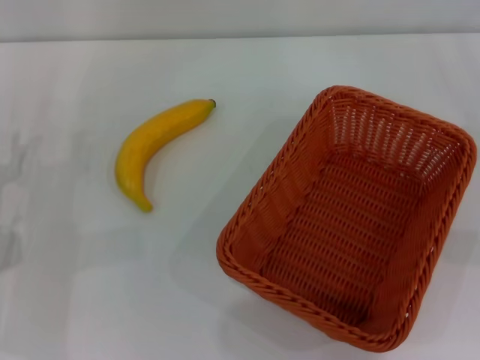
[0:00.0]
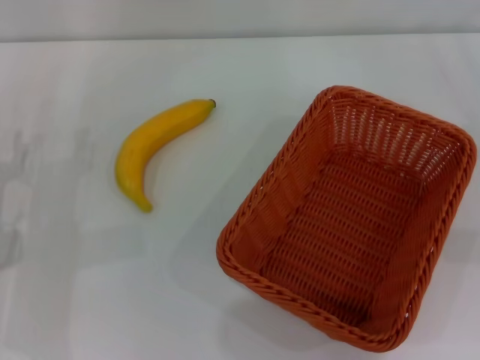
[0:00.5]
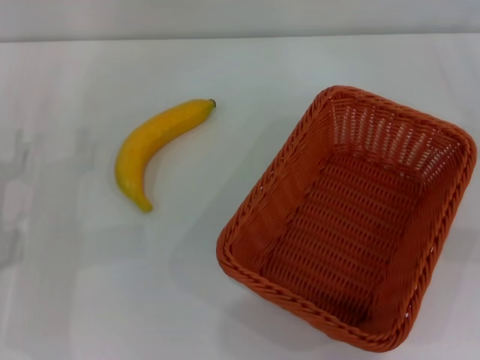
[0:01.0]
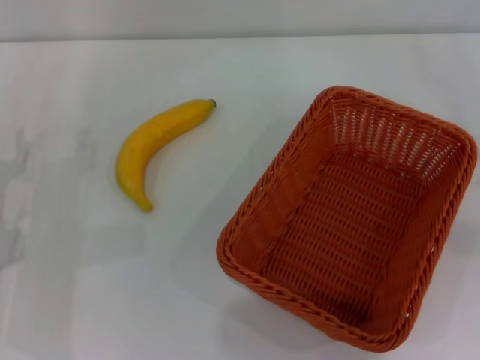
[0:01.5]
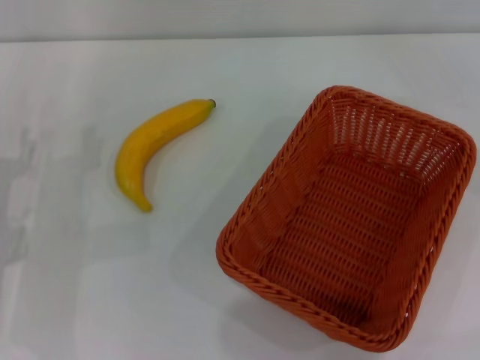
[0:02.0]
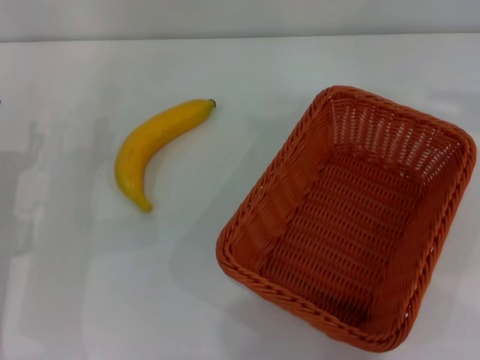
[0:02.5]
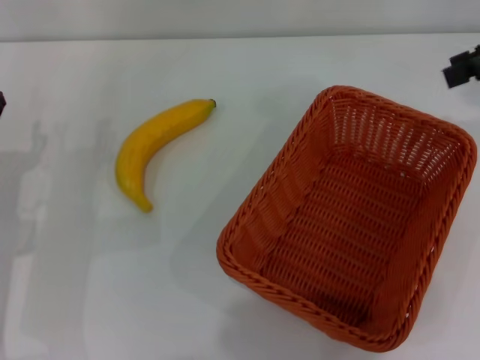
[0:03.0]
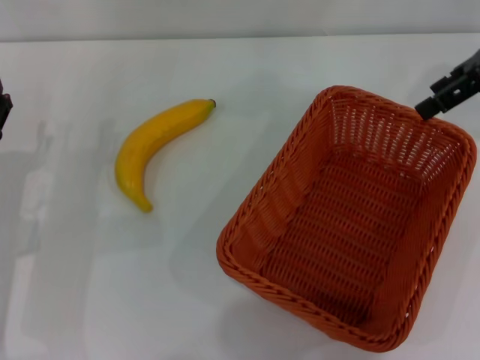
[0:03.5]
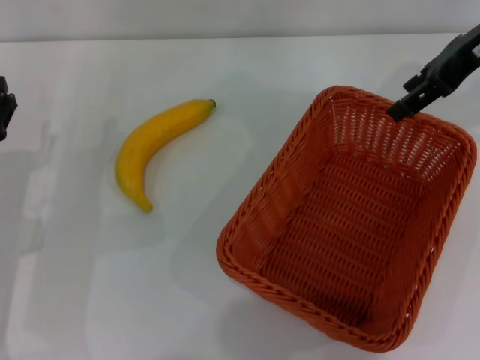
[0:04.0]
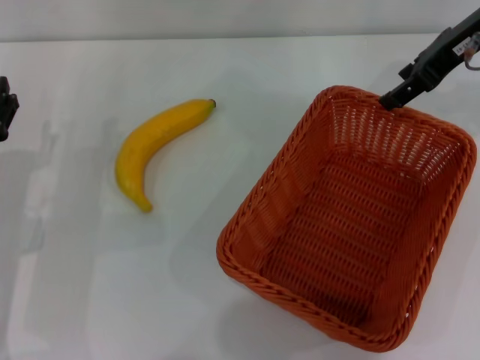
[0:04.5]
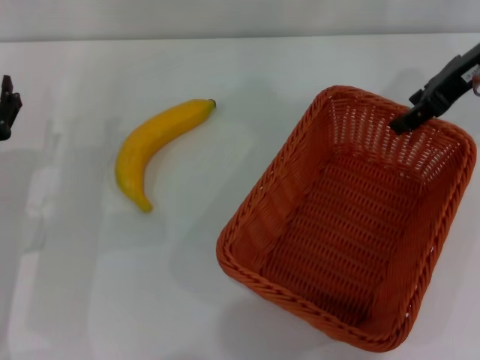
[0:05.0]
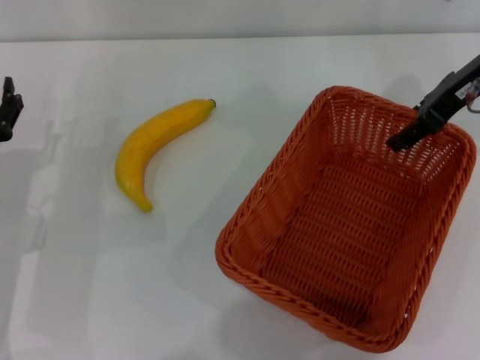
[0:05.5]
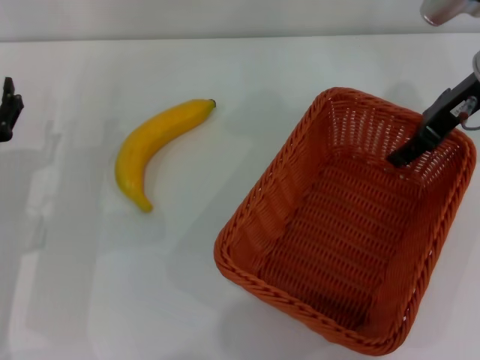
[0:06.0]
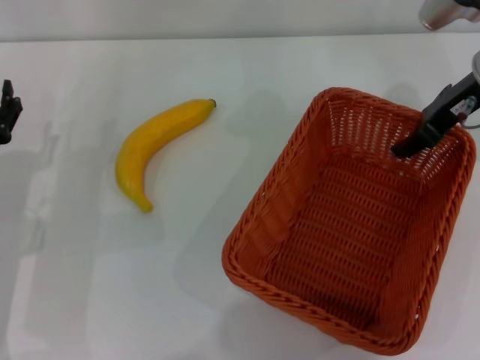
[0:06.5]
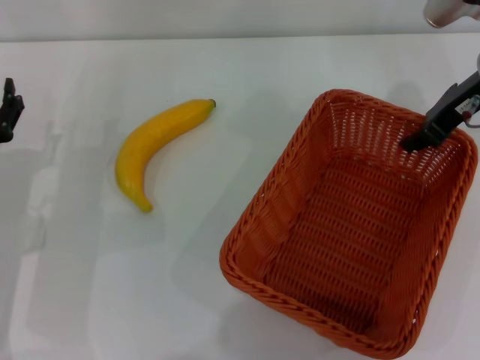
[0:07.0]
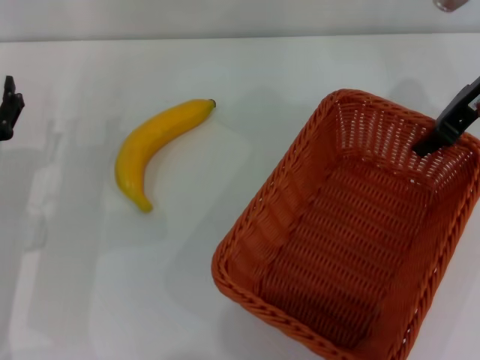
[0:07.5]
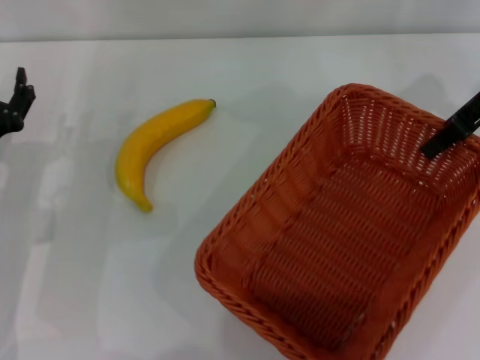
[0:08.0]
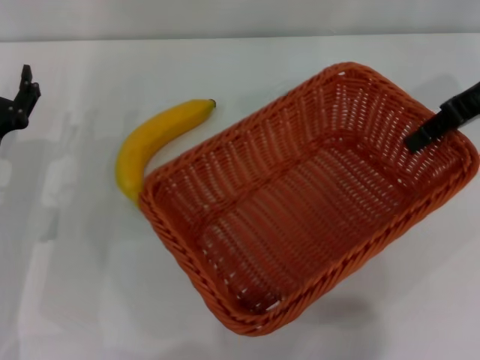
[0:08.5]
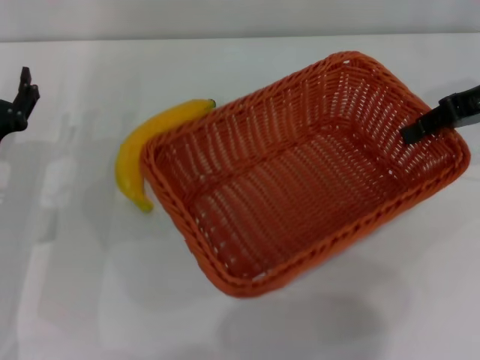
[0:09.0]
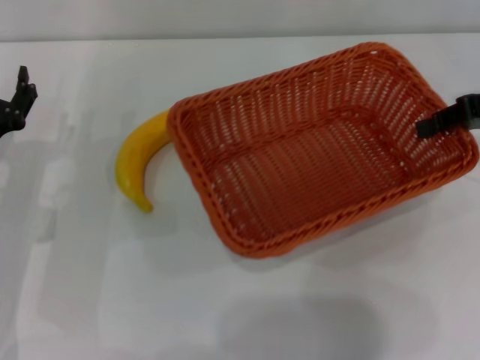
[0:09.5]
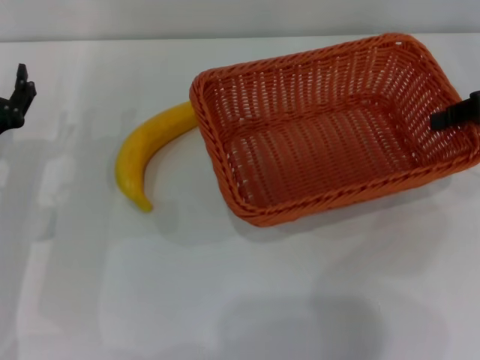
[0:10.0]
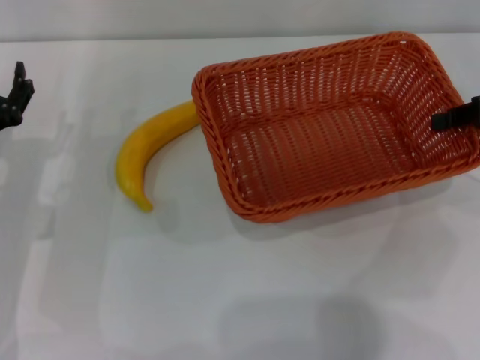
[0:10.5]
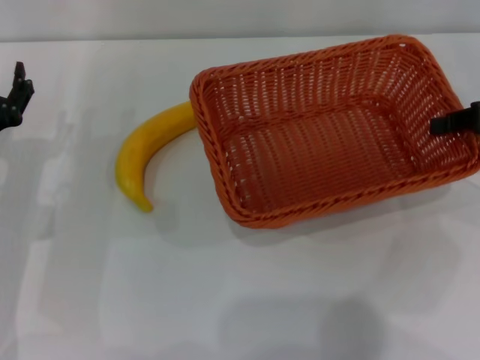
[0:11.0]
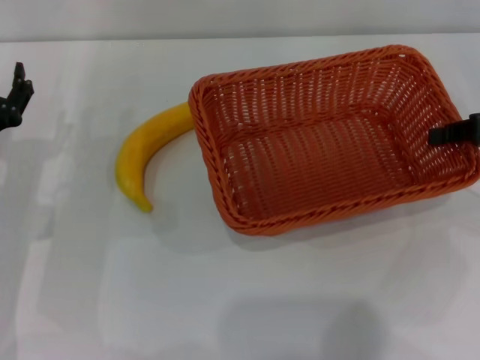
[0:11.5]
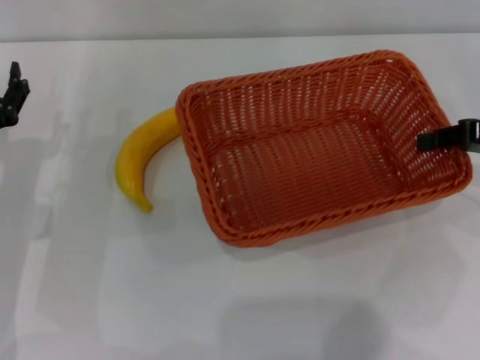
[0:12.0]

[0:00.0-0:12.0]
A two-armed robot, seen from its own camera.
Step, 0:00.0 to 0:08.0: Pick up the light basket with the right gripper.
0:02.0 to 0:04.0: The right gripper heads to the left and forward, covering approximately 25 cm.
0:04.0 to 0:06.0: The right gripper is displaced downward by approximately 5 cm.
0:06.0 to 0:08.0: The right gripper closes.
0:08.0 to 0:10.0: The right gripper goes roughly 10 cm to the right and downward.
0:10.0 to 0:12.0: There are only small adjustments of the grippers.

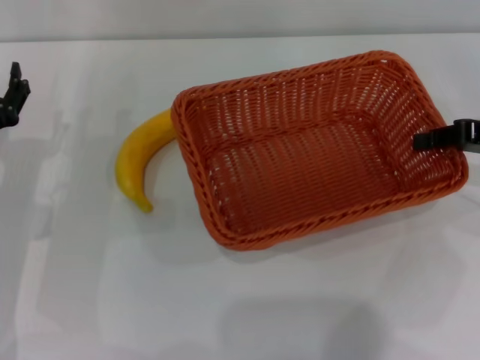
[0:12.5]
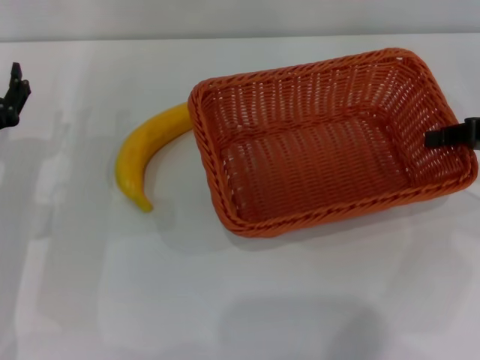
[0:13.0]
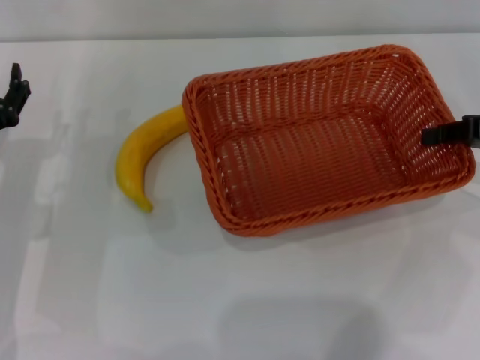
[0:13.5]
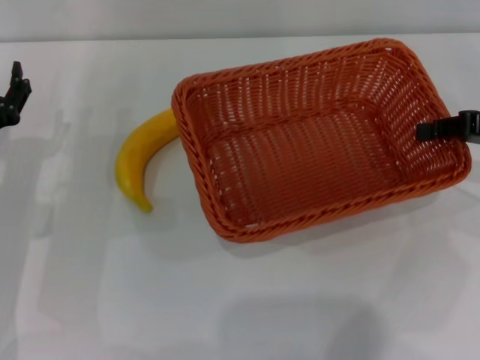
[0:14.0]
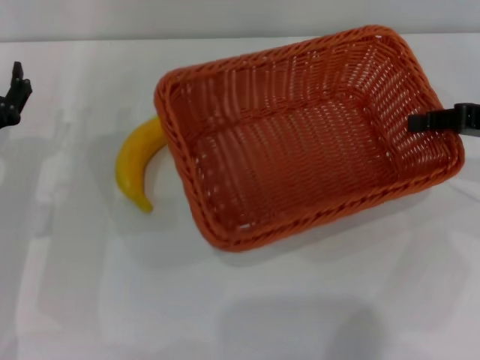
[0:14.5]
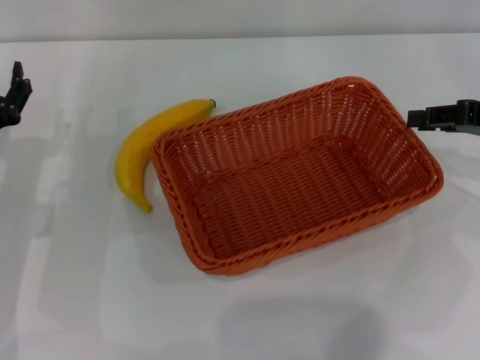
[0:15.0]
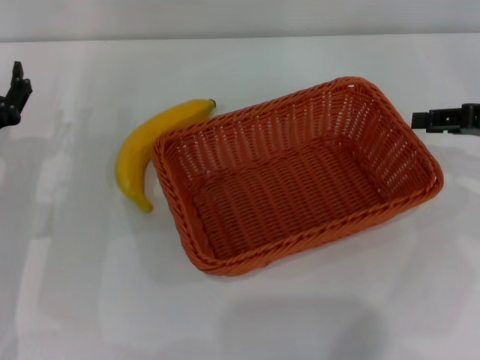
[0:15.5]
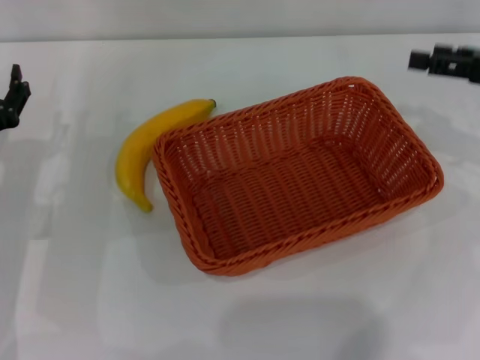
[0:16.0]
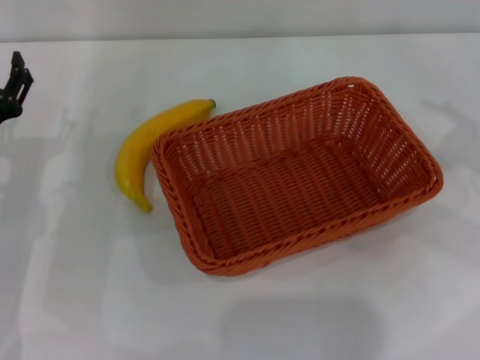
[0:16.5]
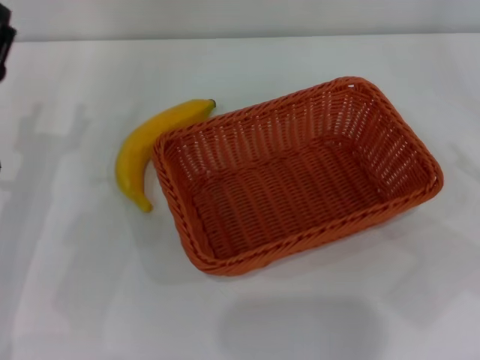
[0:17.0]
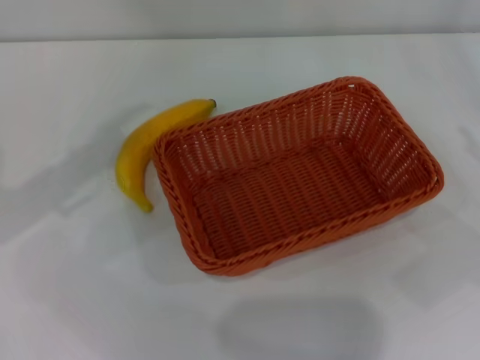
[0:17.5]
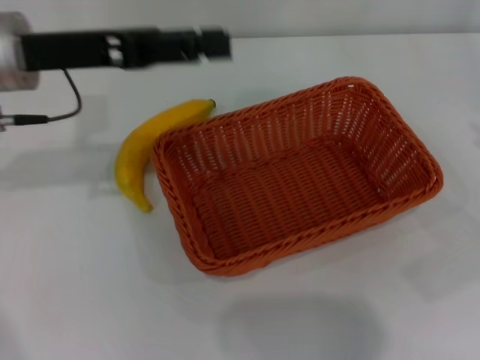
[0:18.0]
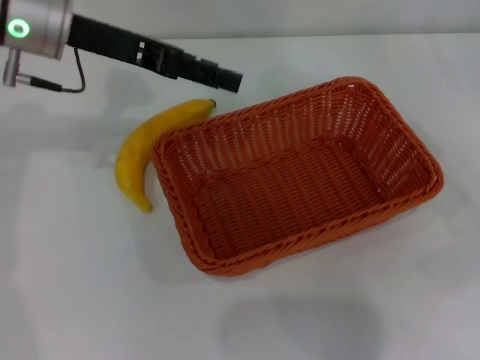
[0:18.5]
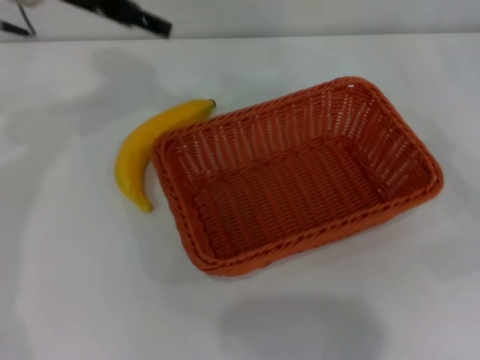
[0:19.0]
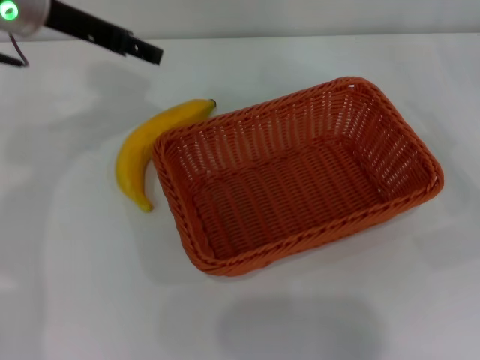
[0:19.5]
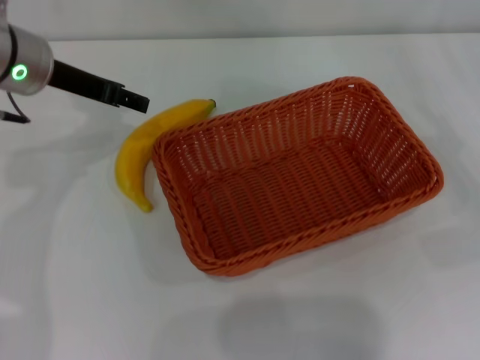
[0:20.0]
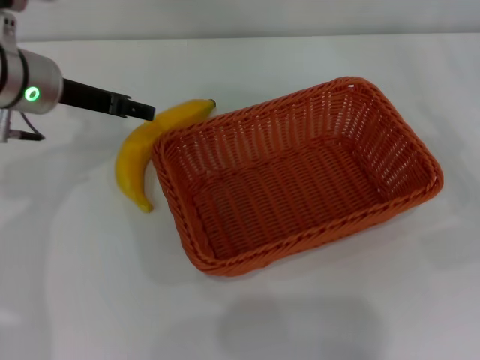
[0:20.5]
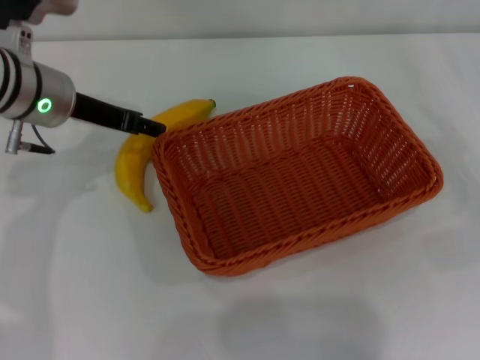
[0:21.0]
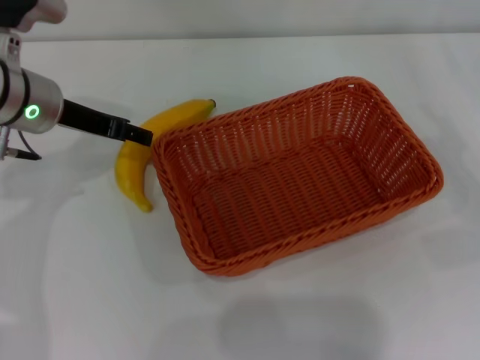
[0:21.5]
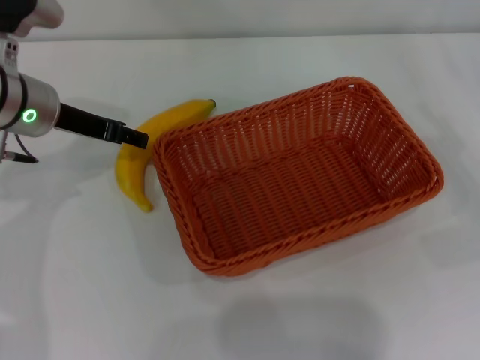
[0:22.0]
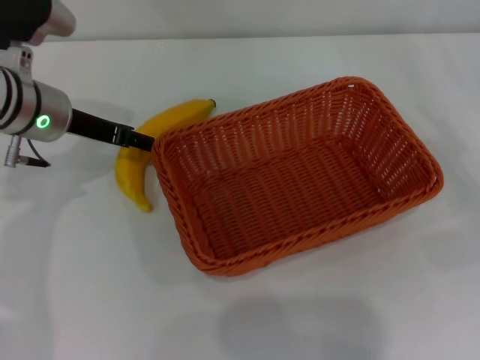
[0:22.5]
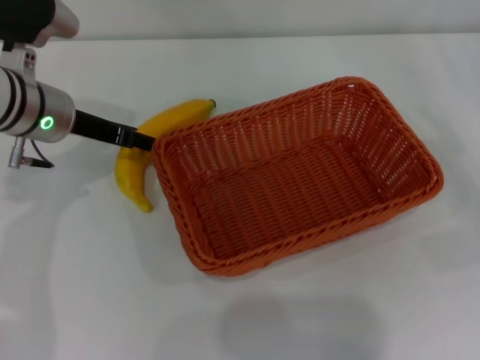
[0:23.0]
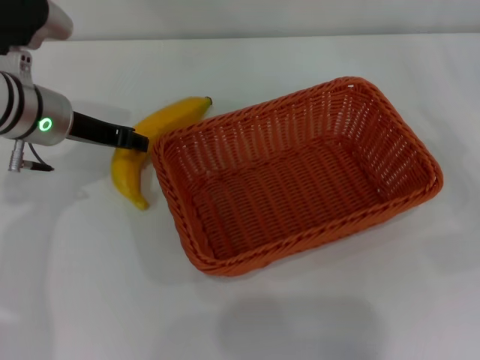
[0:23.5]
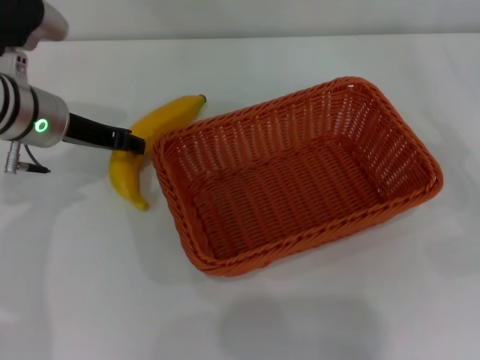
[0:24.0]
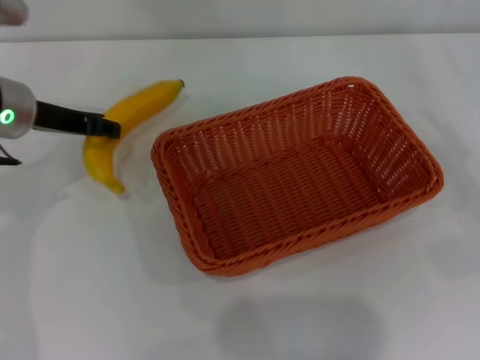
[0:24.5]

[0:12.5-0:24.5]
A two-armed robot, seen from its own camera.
Step, 0:12.5 to 0:15.5: Place the light basket in the center of view with the right gripper.
0:12.5 to 0:14.5: The grippers stay close to where they were, moving slightly.
0:14.5 to 0:16.5: The right gripper is displaced backward by approximately 5 cm, and opens its fingers.
0:16.5 to 0:18.5: The right gripper is displaced downward by about 5 cm. The left gripper is displaced upward, forward and to the right by about 20 cm.
0:18.5 to 0:20.5: The left gripper heads downward, covering about 5 cm.
0:20.5 to 0:22.5: There are only small adjustments of the grippers.
0:22.5 to 0:24.5: The left gripper closes.

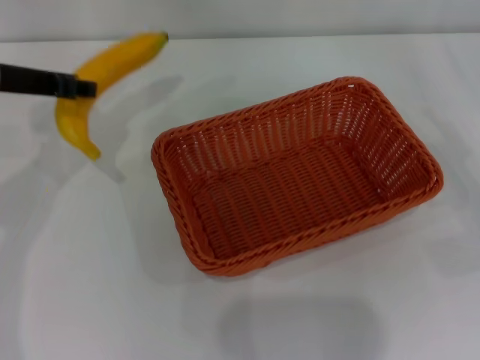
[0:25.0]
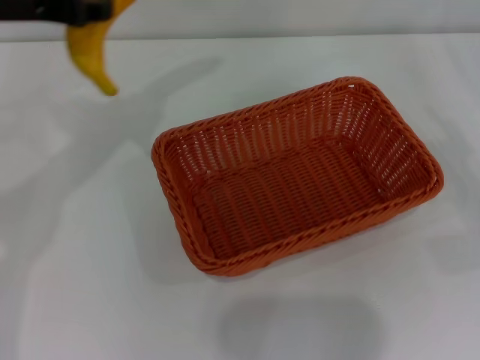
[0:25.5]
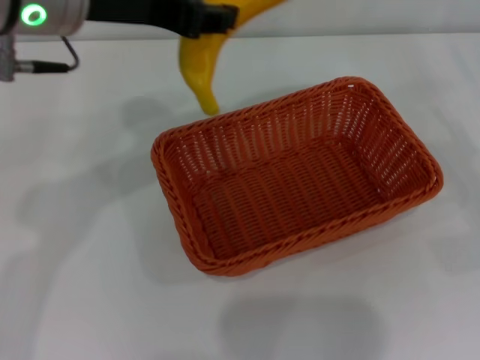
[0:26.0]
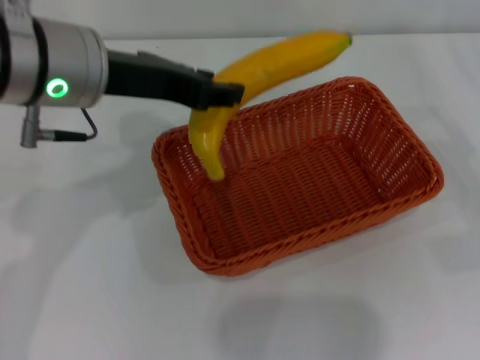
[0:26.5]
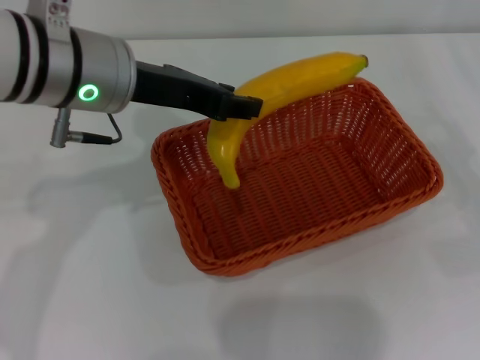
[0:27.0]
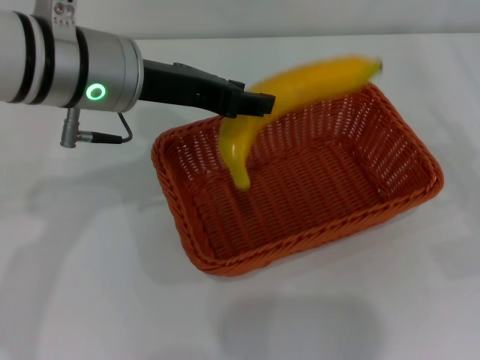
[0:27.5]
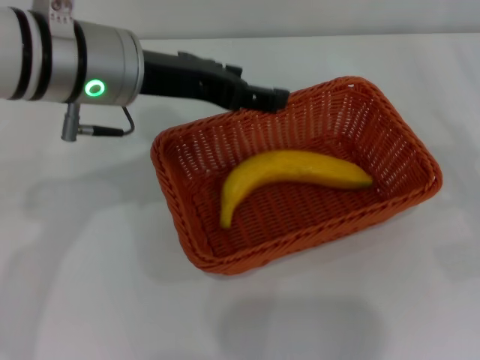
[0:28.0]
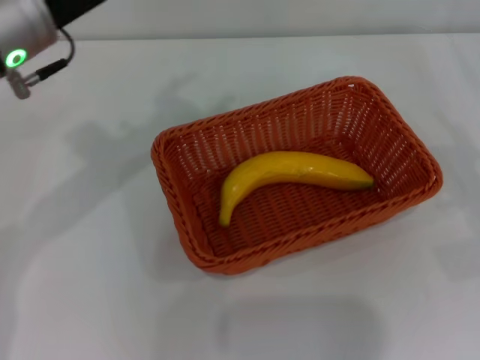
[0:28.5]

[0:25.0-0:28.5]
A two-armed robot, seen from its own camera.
Step, 0:25.0 to 0:28.0: Place the banana into the light basket with the left gripper.
0:25.0 to 0:27.0: The left gripper travels to the right by about 10 cm.
0:27.0 to 0:28.5: The left gripper opens up.
